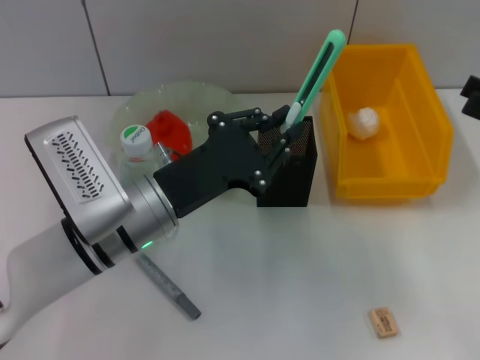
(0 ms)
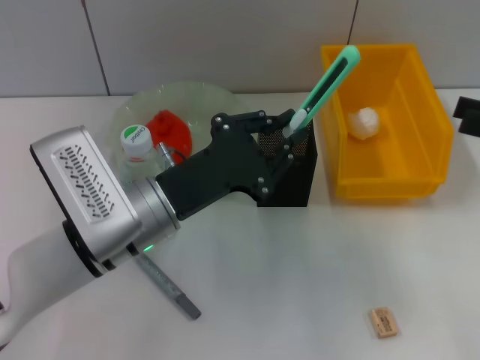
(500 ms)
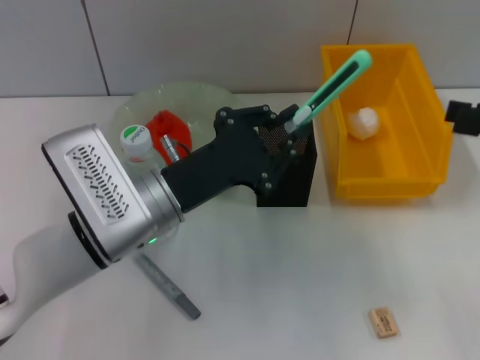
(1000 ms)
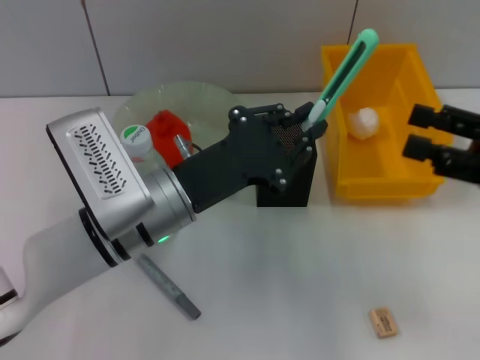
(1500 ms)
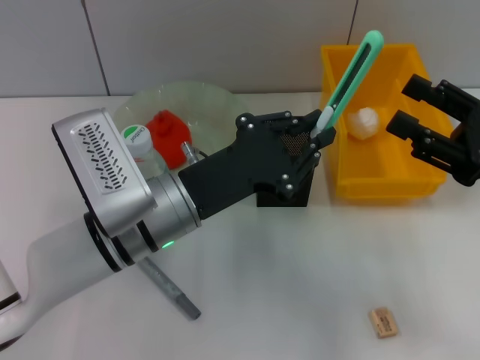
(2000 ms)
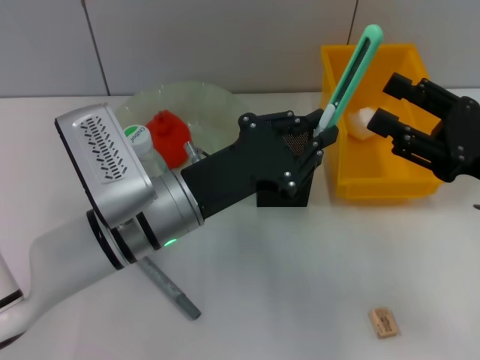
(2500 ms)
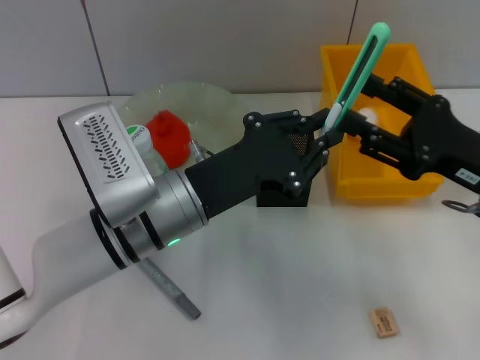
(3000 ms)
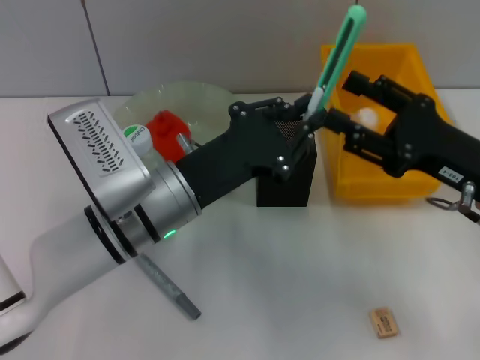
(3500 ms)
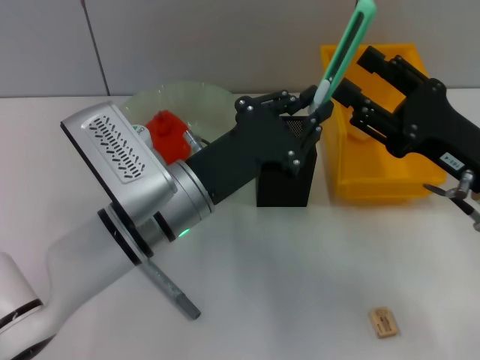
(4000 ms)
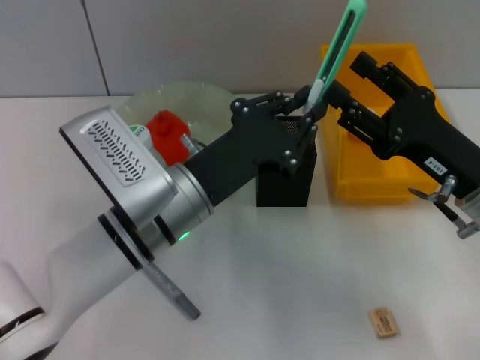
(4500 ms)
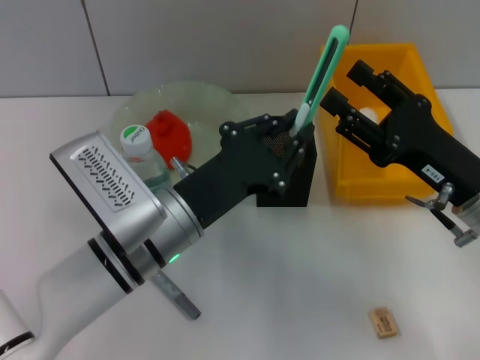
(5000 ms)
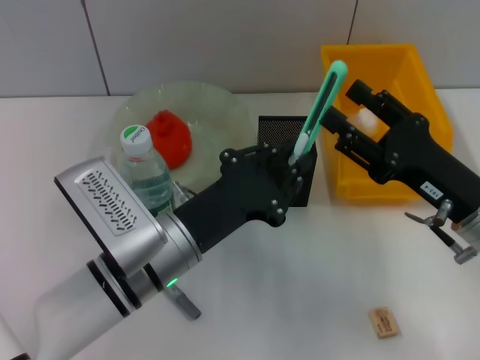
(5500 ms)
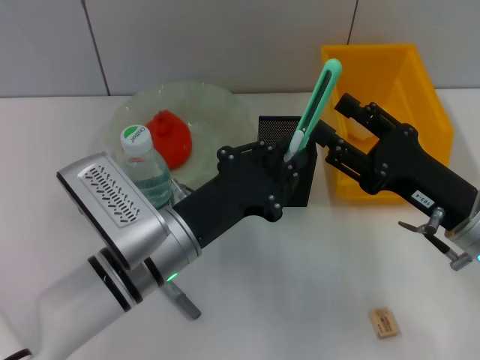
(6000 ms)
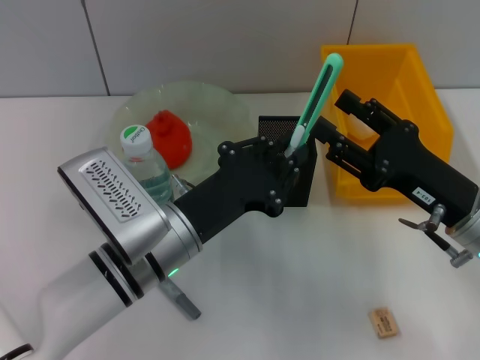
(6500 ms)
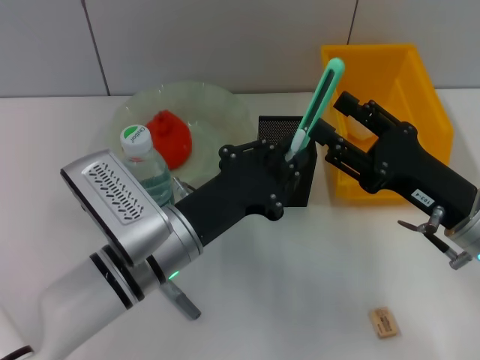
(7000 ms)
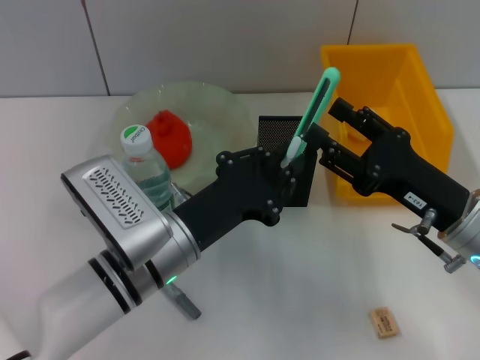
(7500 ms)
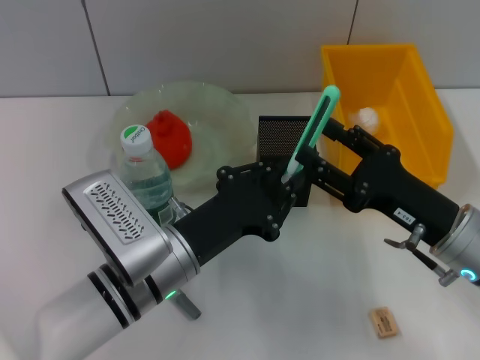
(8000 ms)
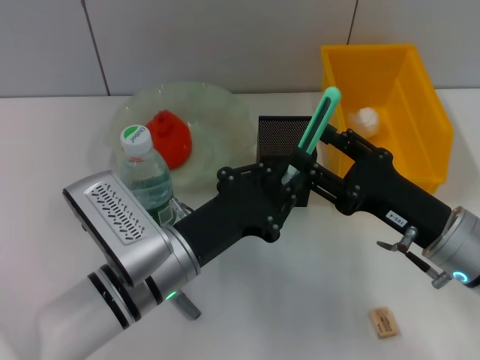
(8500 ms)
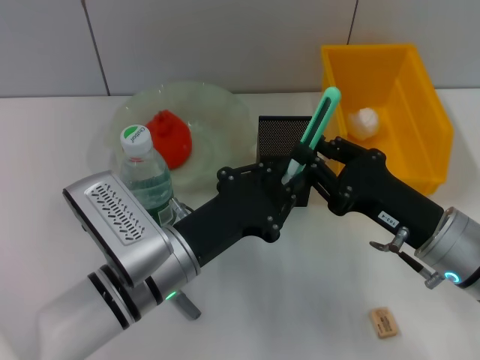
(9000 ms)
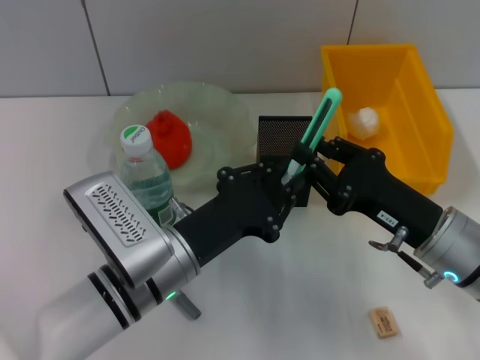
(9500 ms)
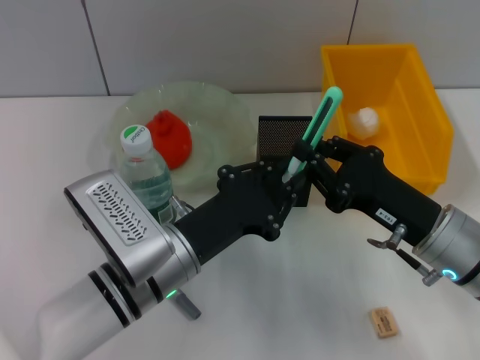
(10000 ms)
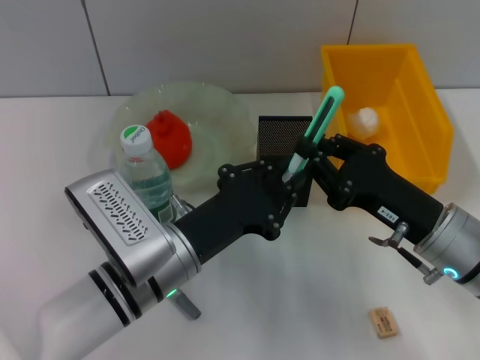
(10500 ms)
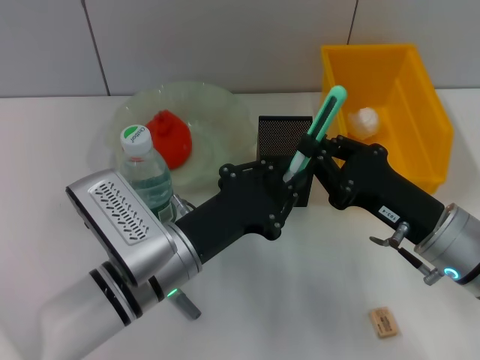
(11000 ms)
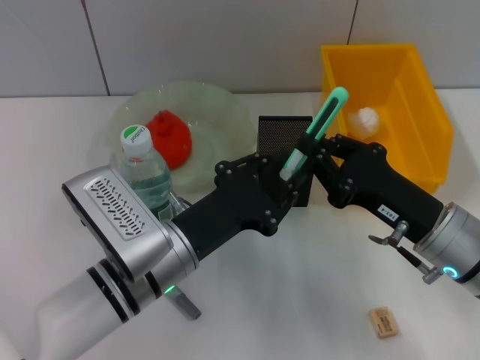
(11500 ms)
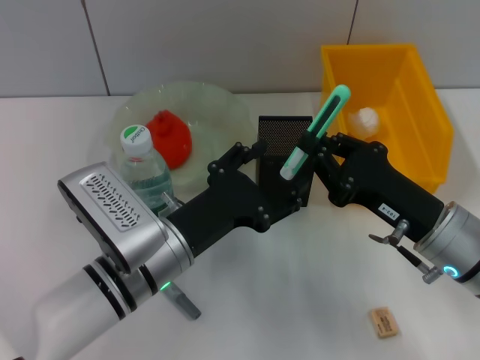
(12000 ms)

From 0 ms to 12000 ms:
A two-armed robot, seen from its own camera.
From 0 ms to 2000 ms: The right gripper moves to the left, approximately 5 cm.
From 2000 ms to 4000 ms: The right gripper moves to the left, some 5 cm.
From 6000 ms to 8000 ms: The grippers make only small movements.
From 8000 ms to 10000 ms: The right gripper closes its fingers.
From 10000 ms to 12000 ms: The left gripper opens its fingers.

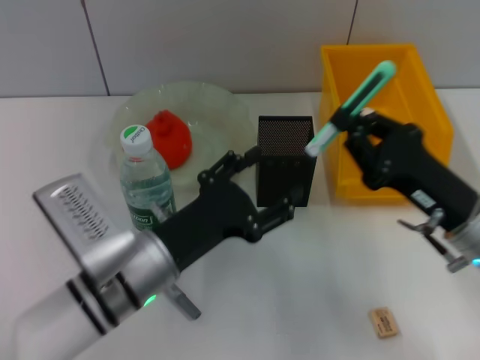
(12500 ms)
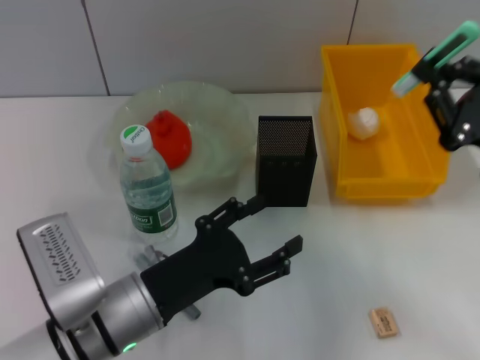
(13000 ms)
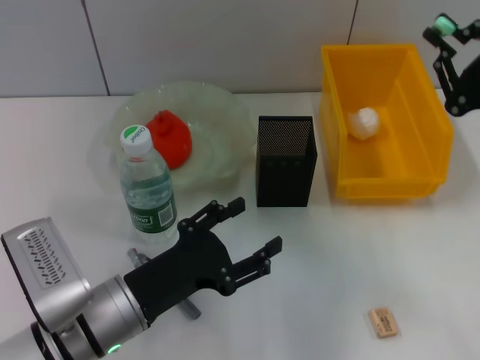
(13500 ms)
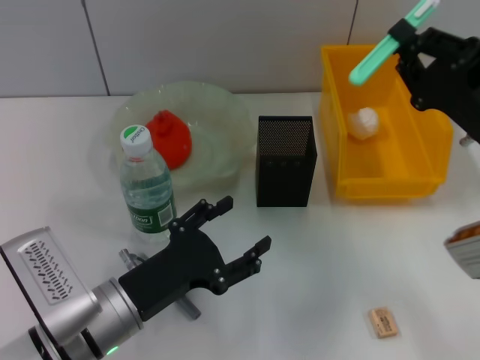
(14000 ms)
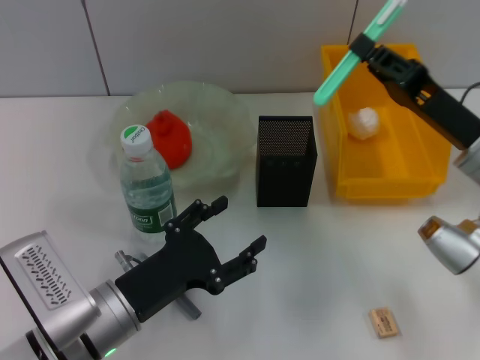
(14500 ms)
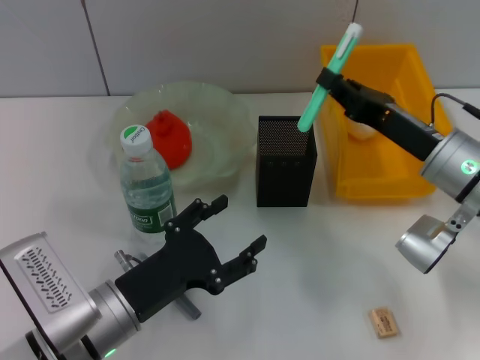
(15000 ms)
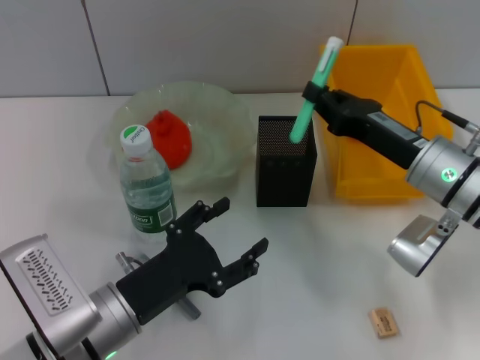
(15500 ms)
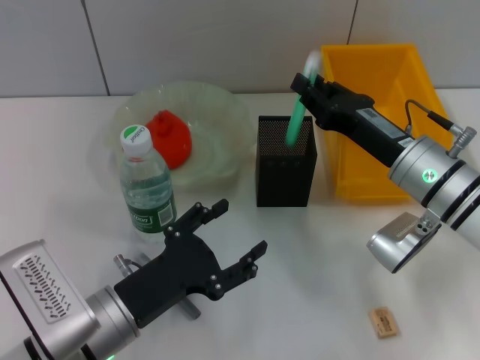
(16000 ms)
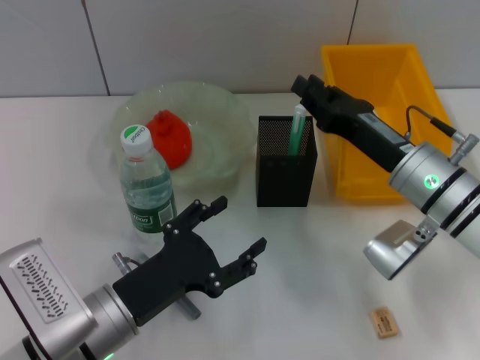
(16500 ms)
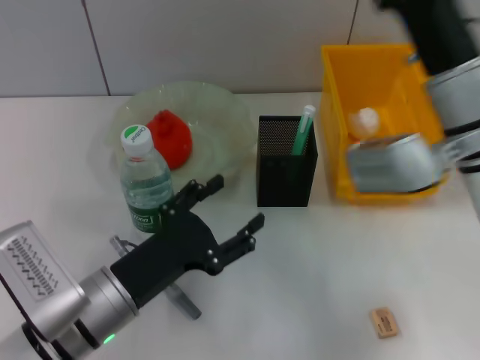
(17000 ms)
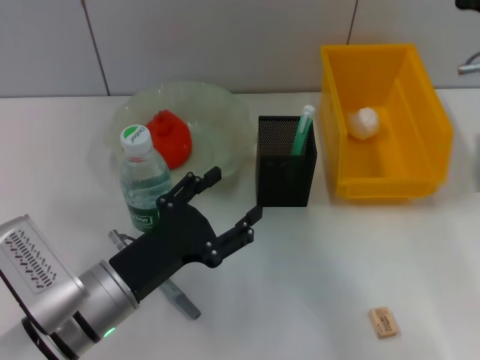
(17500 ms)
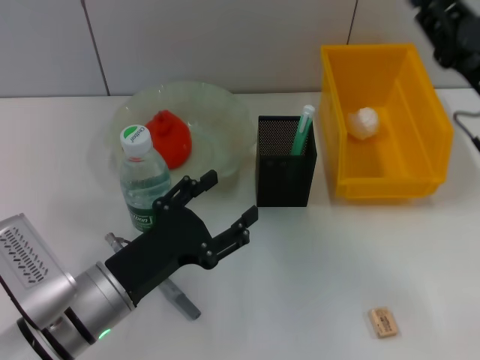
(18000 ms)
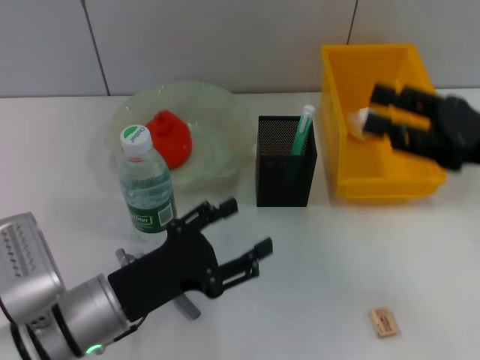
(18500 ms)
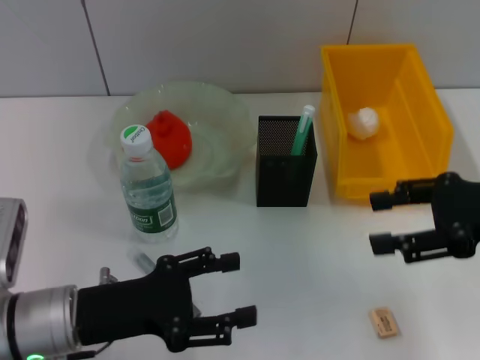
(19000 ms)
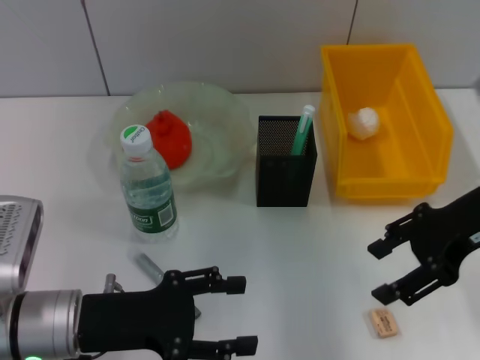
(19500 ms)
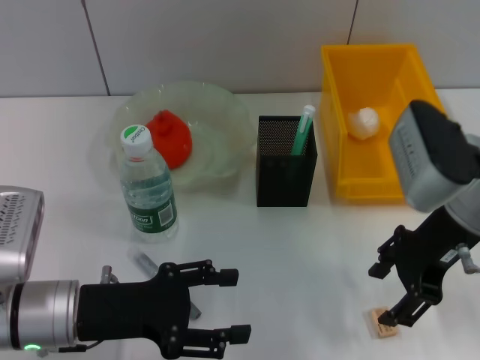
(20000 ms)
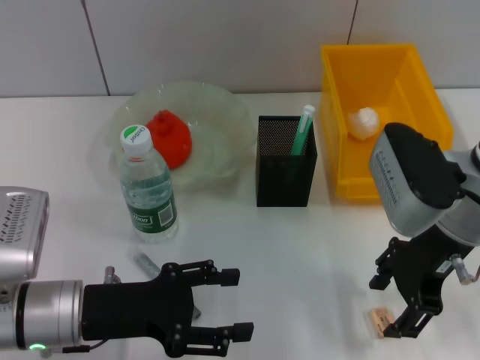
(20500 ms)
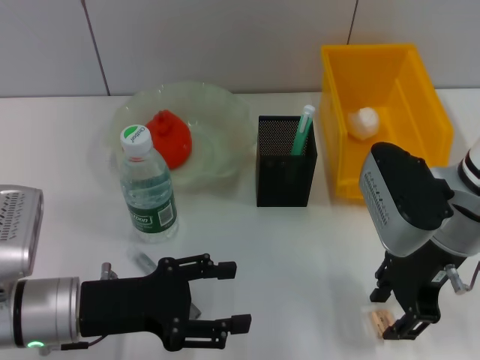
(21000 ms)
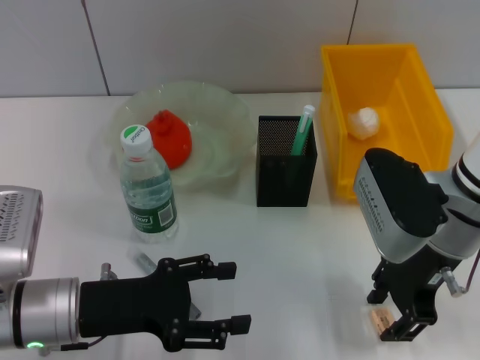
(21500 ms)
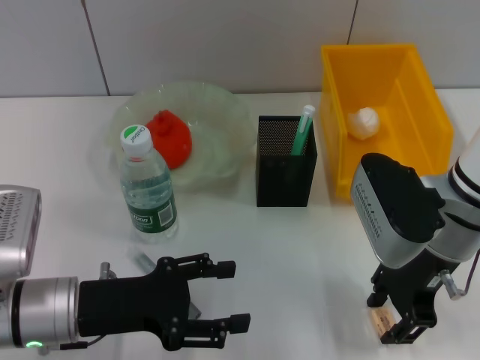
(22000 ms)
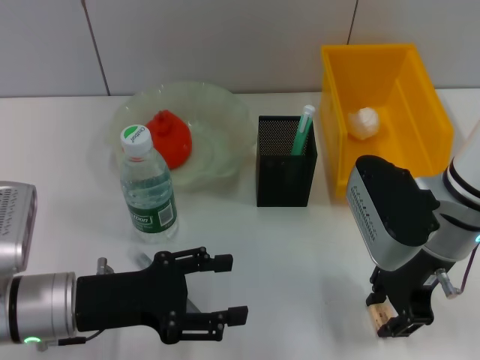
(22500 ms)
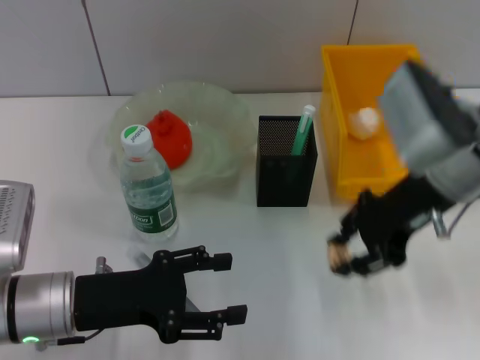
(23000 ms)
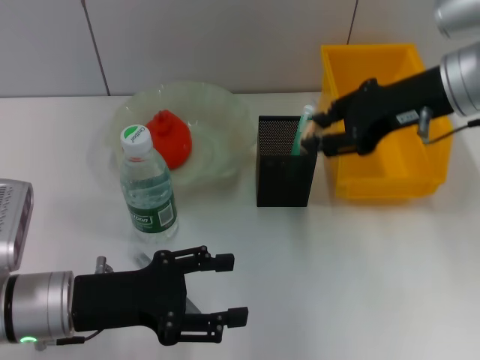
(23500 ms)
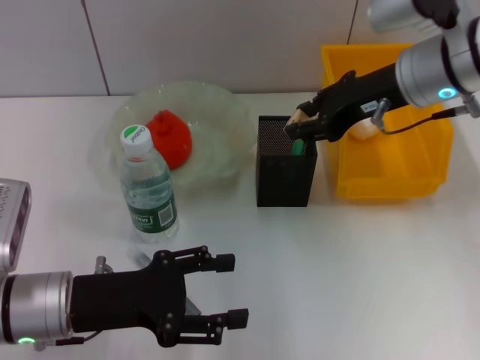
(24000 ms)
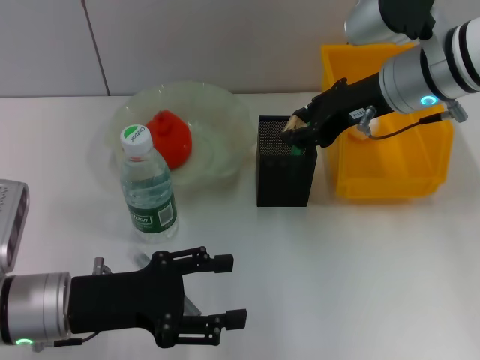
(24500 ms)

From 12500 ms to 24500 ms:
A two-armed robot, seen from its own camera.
Step, from 12500 ms to 16500 ms: Place the blue utility knife into the pen holder with the right hand.
Step, from 17000 ms to 22500 ms: Grab the eraser with the right hand.
From 12500 ms to 14500 ms: The left gripper moves roughly 5 cm. Meanwhile the right gripper travels forward by about 5 cm.
From 14500 ms to 16500 ms: The right gripper shifts roughly 5 cm to the left.
From 16500 ms to 18500 ms: The right gripper is displaced to the right and upward by about 15 cm, and opens its fingers.
From 18500 ms to 20500 ms: The right gripper heads to the left, covering some 10 cm.
From 20500 ms to 22500 ms: The grippers make only small movements.
From 22500 ms to 24500 ms: The right gripper goes some 10 cm forward and upward.

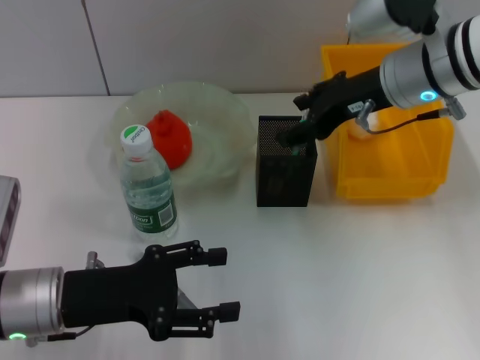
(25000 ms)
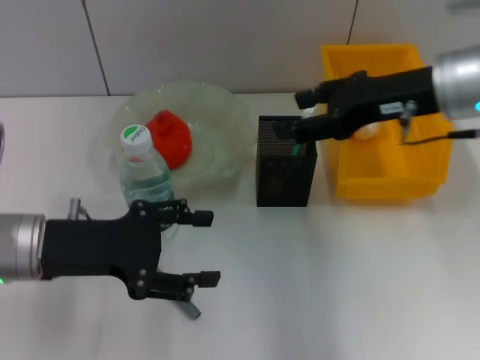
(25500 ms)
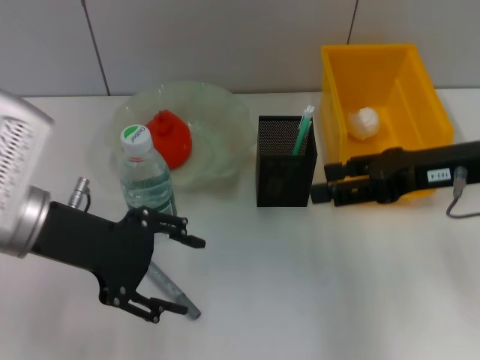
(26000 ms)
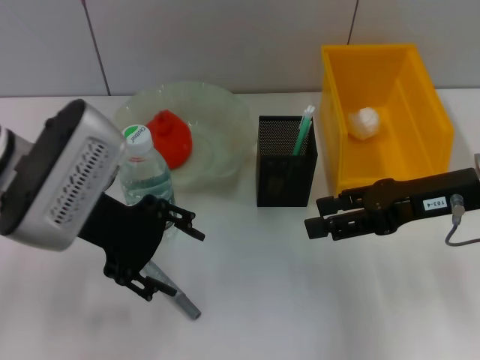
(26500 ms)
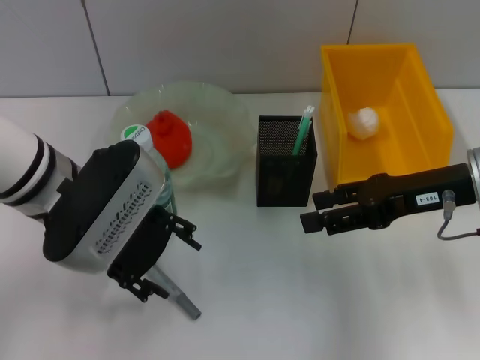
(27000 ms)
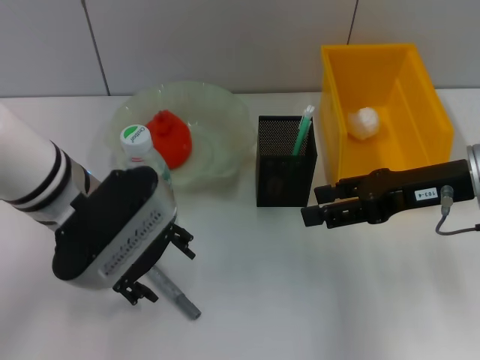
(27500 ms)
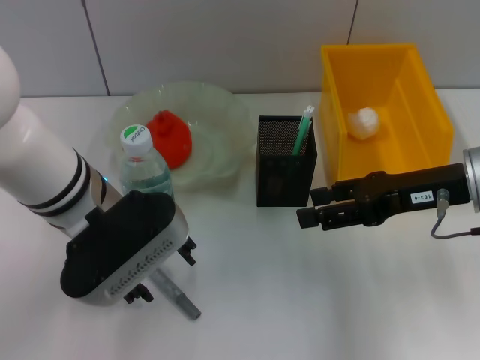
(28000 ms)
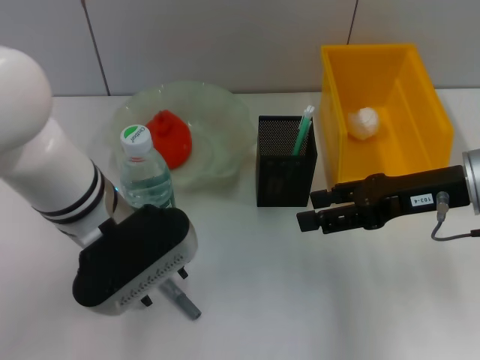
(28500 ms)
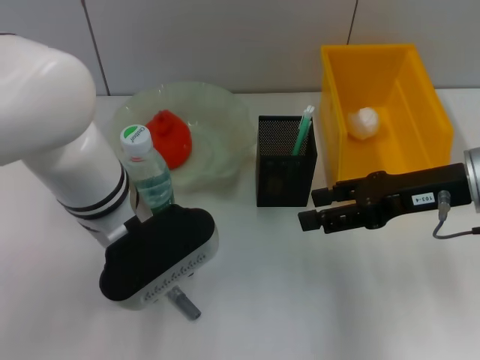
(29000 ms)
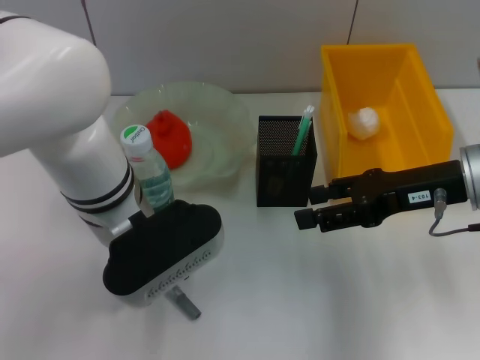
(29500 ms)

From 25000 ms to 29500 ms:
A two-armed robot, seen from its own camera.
From 25000 ms to 27000 ms: The left gripper heads upward, forward and to the right, covering about 15 cm; the right gripper is displaced backward and to the right by some 10 cm.
From 27000 ms to 29500 ms: The left gripper shifts some 5 cm to the right.
